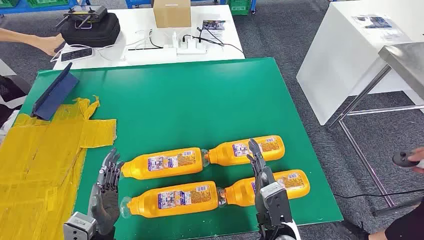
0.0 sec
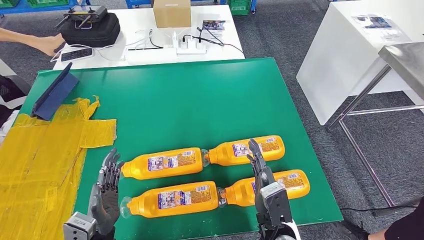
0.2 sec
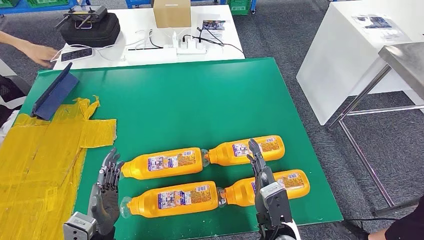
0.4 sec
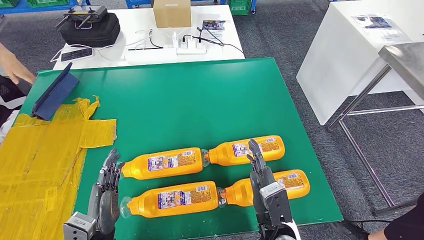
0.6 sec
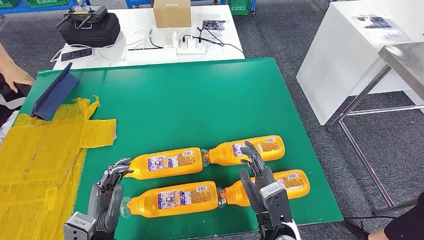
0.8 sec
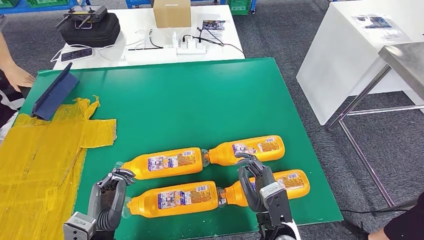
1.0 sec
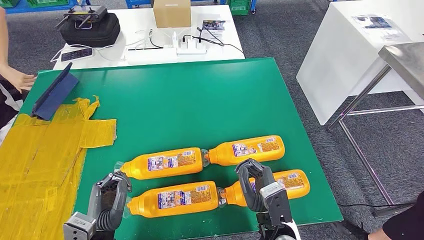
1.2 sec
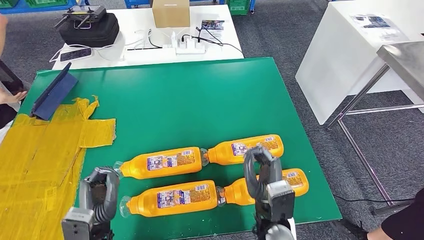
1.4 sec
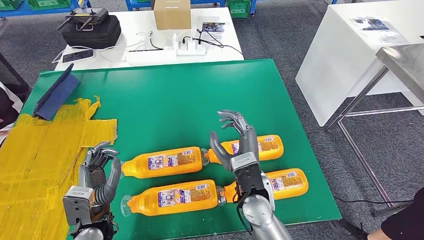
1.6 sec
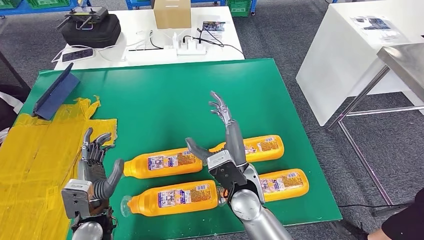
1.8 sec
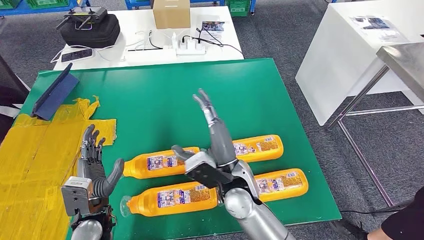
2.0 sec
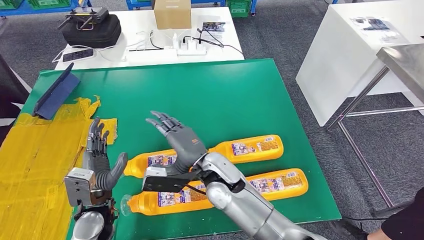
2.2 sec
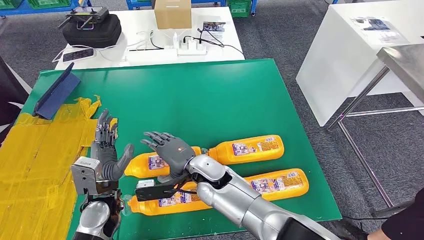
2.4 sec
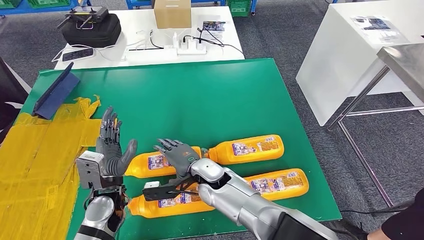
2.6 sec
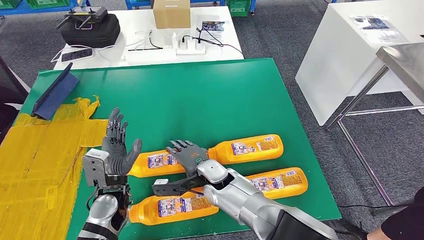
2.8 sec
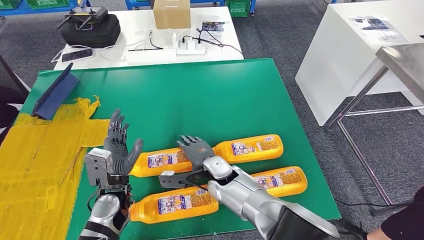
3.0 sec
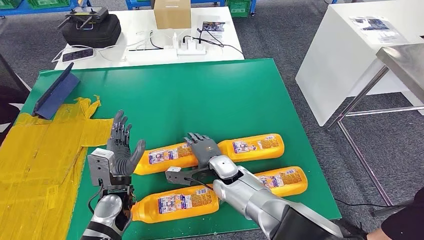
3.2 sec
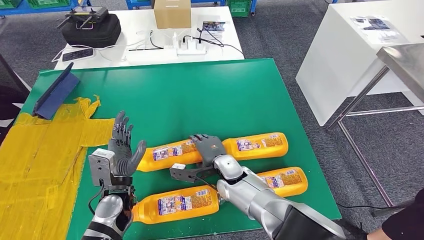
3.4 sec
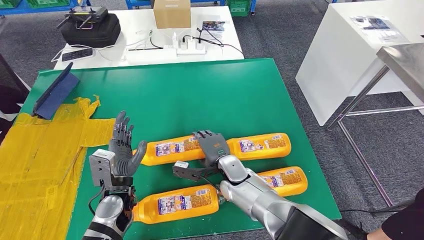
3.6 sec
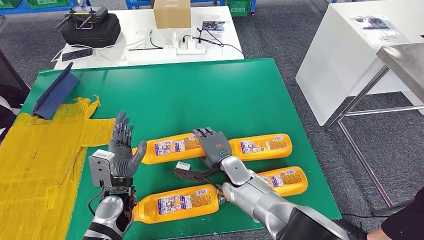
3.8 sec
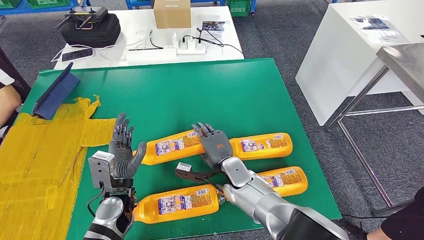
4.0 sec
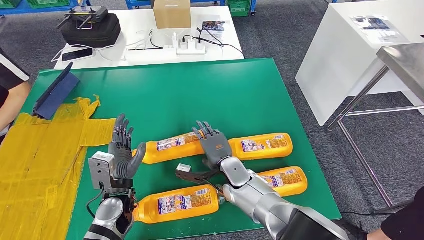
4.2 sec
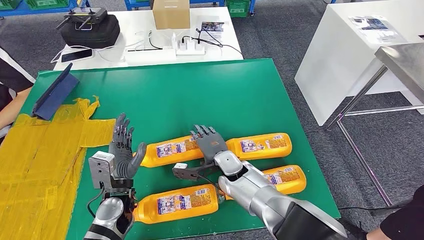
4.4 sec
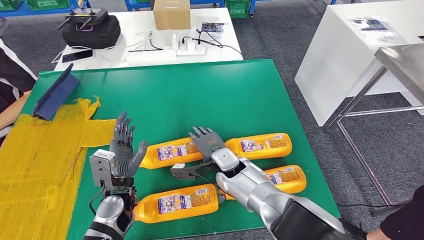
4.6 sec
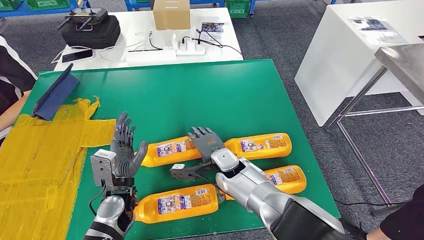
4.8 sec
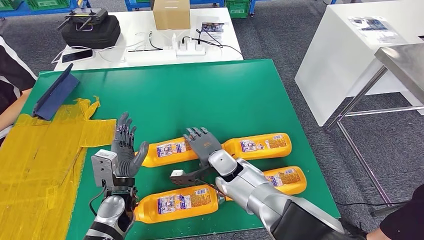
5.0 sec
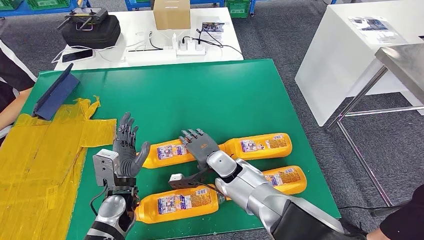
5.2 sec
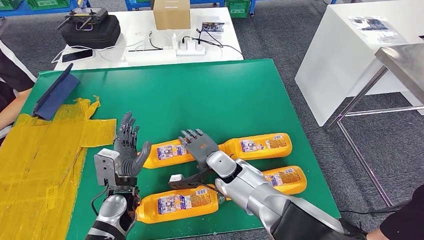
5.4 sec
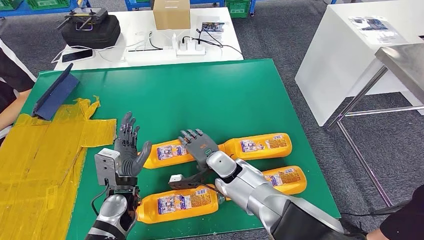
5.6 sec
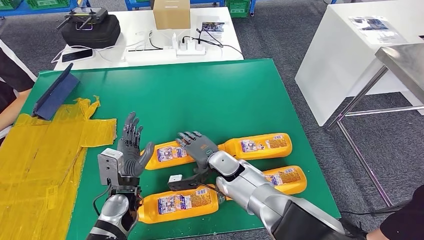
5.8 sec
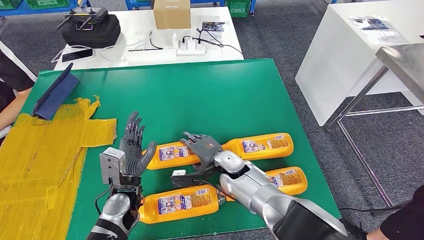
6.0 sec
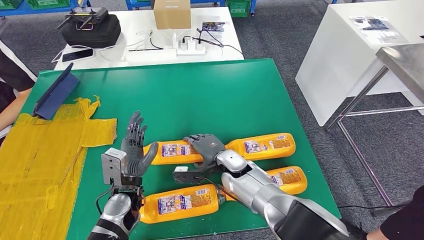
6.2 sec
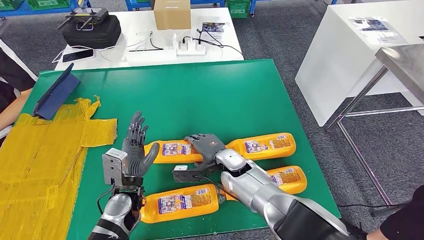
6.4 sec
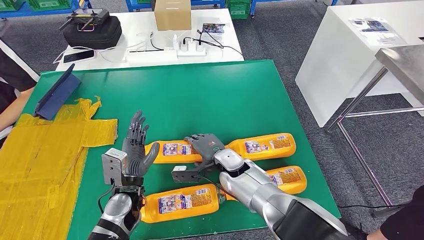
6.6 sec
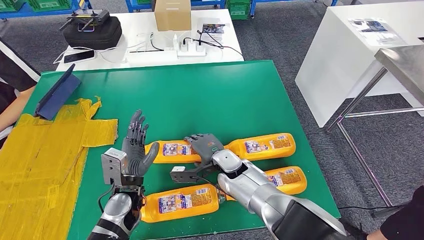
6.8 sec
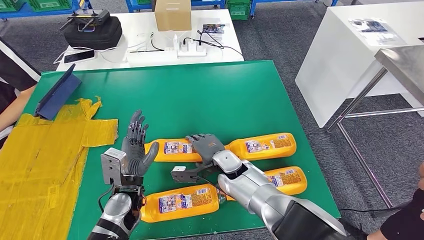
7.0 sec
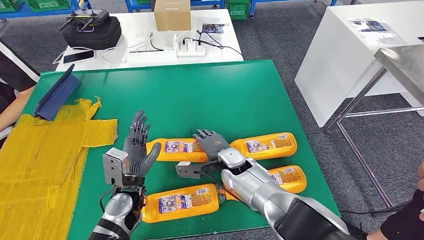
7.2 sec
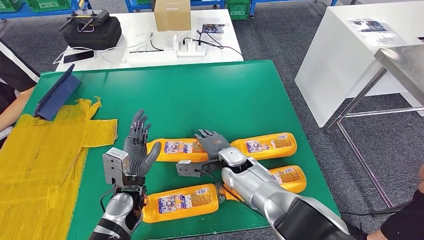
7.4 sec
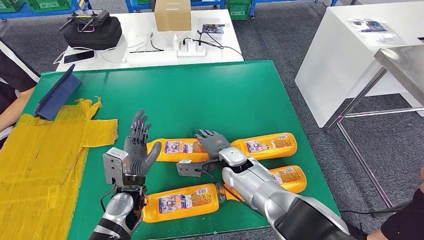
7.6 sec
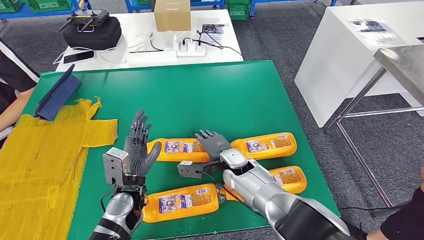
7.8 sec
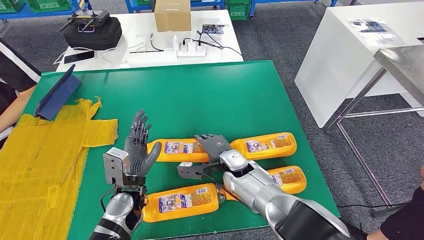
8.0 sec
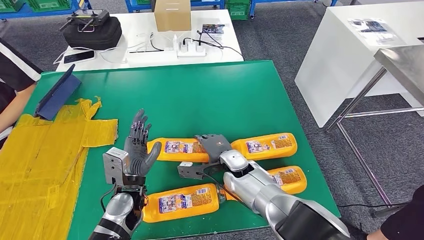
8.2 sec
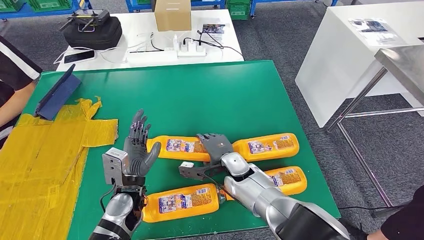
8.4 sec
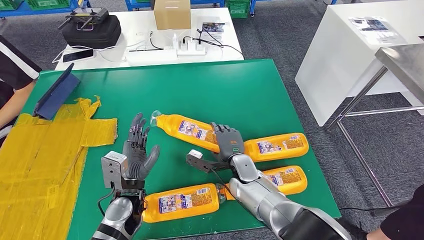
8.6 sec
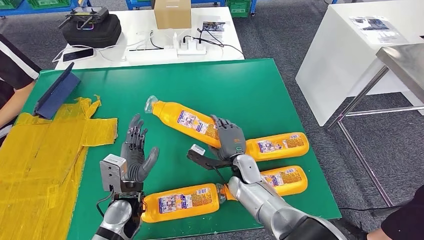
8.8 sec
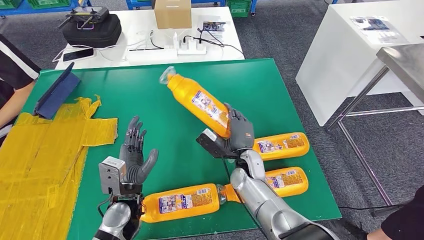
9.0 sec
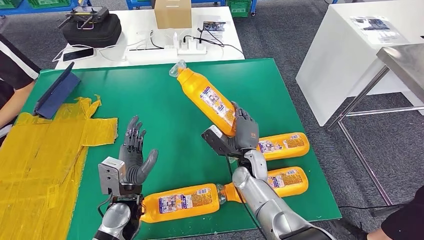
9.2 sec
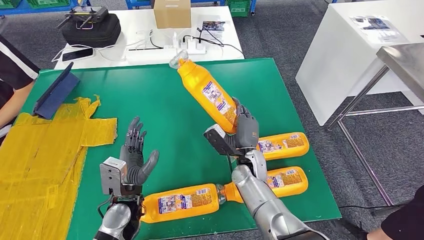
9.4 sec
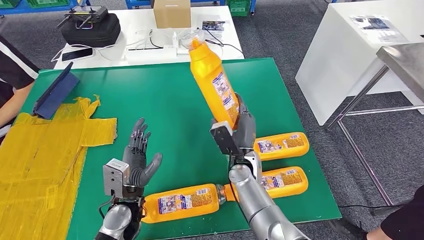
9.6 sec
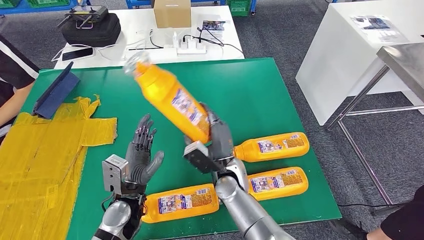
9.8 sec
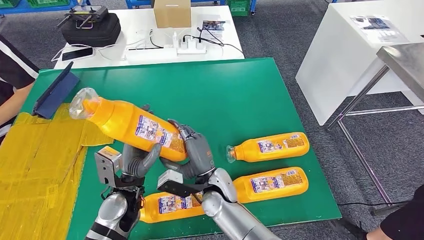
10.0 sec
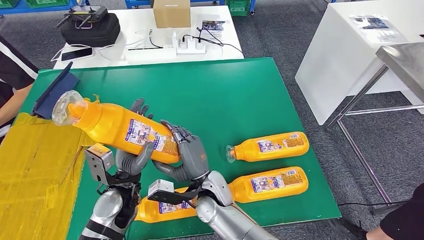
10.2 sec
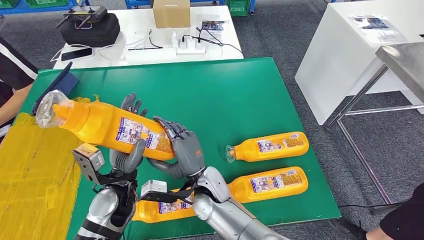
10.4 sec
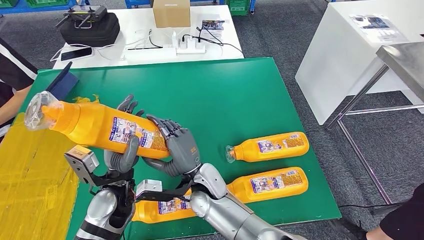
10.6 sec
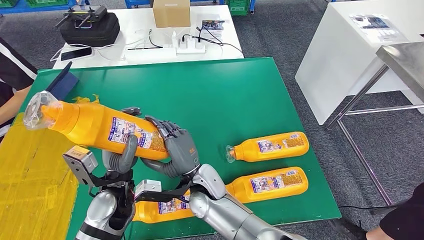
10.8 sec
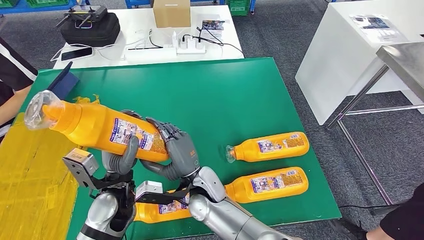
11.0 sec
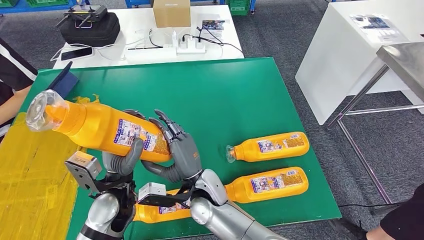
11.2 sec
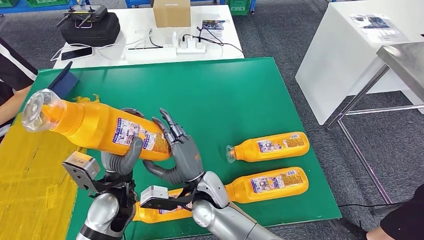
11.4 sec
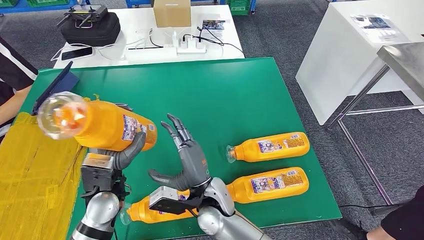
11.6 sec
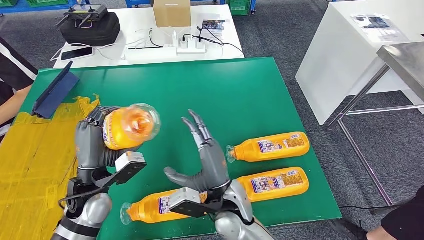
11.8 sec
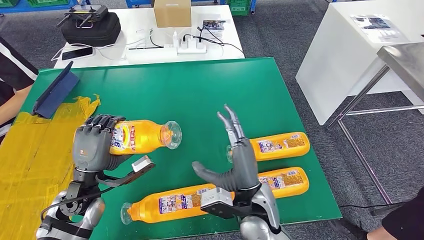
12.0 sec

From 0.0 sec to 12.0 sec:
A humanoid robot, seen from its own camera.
Step, from 0.0 sec to 10.2 sec: Take the fast-moving consumer goods bottle from the table.
From 1.6 sec to 3.0 sec: The left hand travels forward by approximately 5 cm. Meanwhile the right hand shifts about 10 cm forward and downward.
From 4.4 sec to 7.6 sec: There are only small adjustments of the hands.

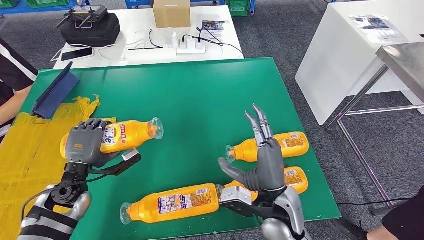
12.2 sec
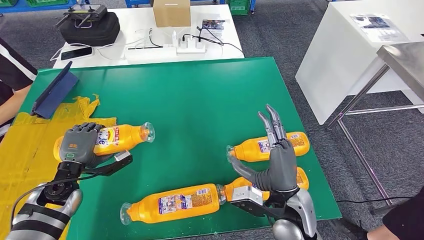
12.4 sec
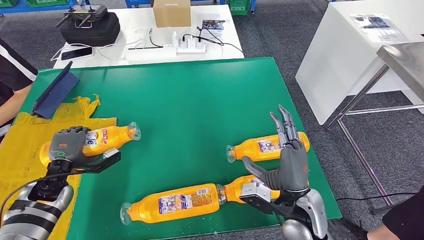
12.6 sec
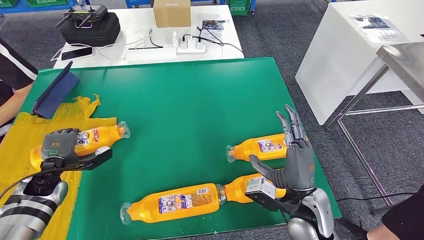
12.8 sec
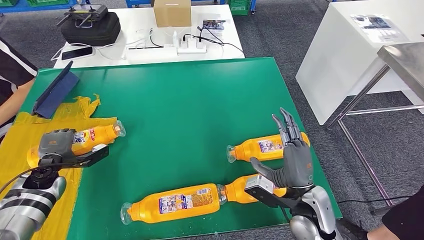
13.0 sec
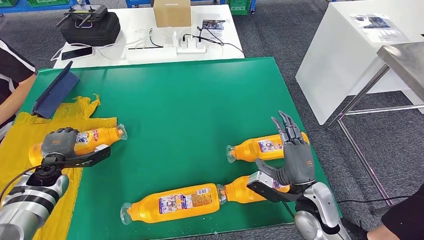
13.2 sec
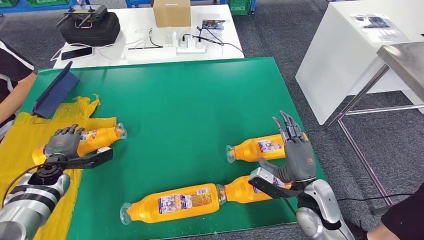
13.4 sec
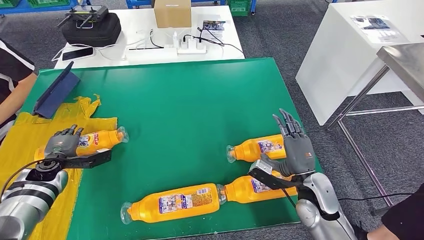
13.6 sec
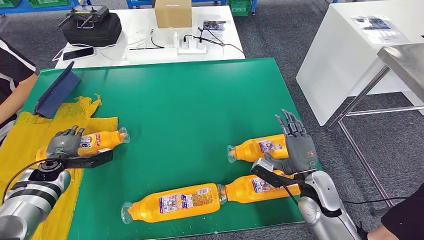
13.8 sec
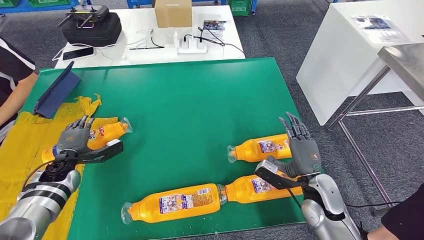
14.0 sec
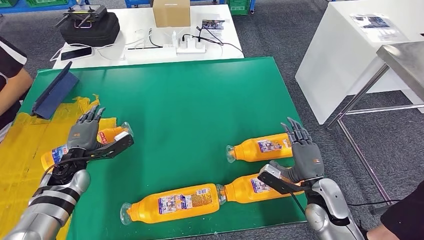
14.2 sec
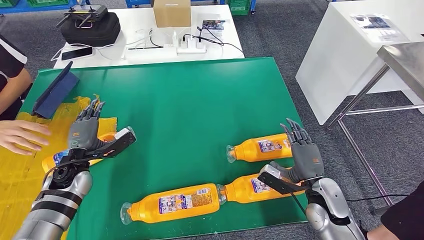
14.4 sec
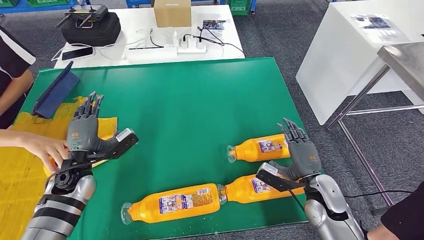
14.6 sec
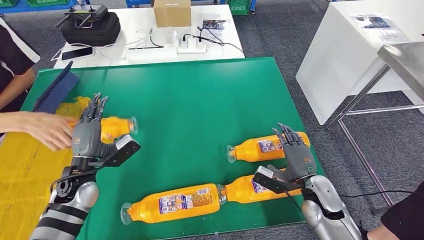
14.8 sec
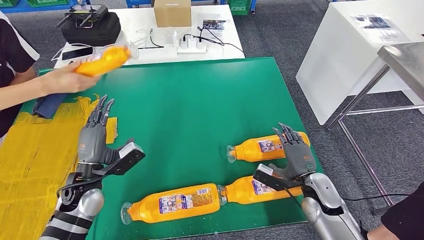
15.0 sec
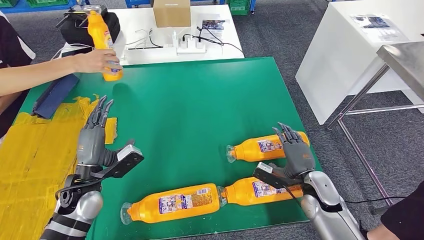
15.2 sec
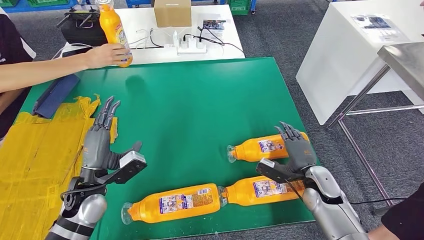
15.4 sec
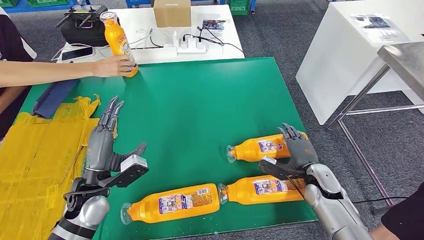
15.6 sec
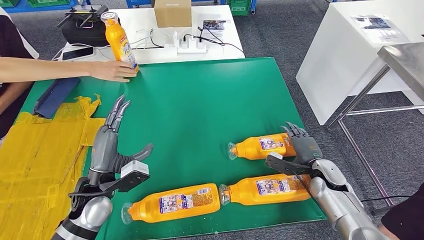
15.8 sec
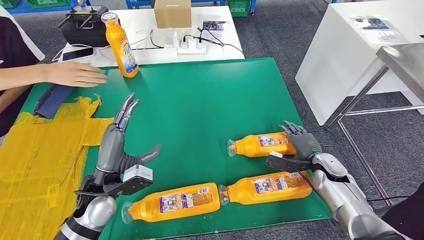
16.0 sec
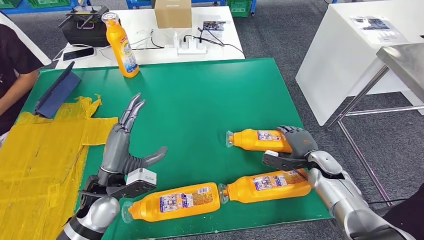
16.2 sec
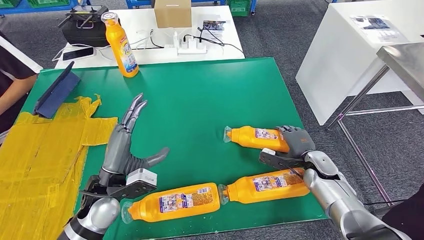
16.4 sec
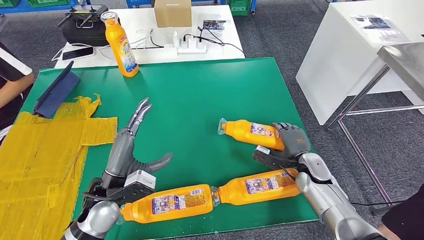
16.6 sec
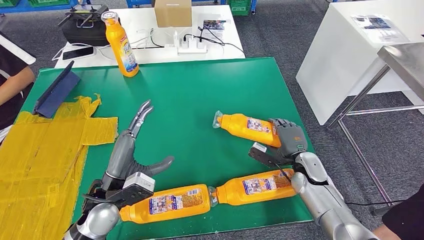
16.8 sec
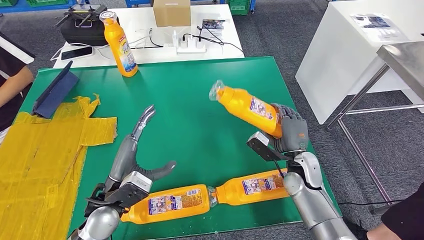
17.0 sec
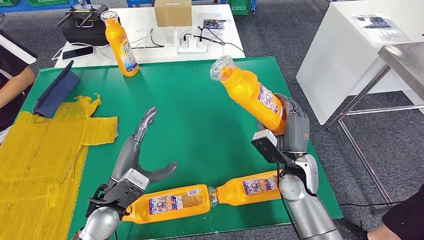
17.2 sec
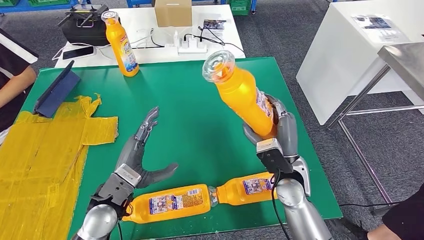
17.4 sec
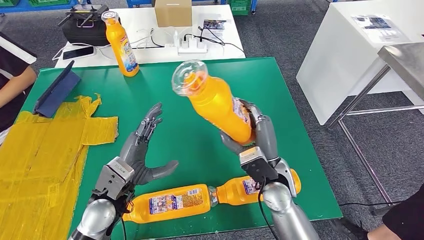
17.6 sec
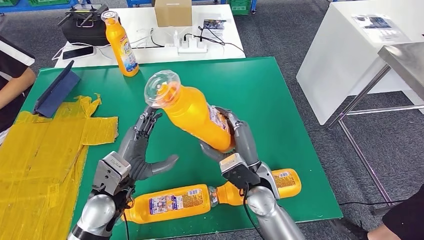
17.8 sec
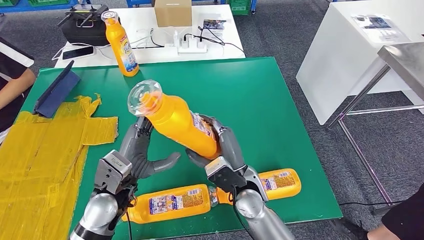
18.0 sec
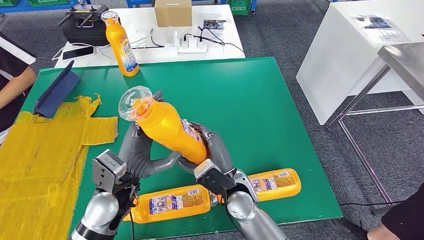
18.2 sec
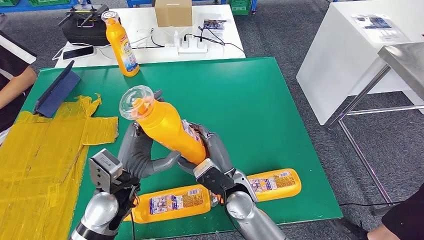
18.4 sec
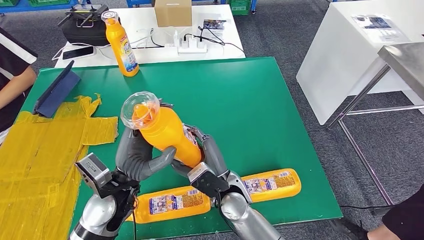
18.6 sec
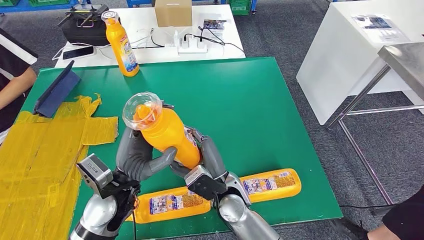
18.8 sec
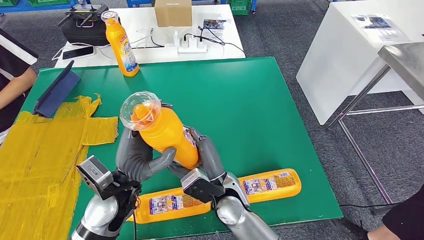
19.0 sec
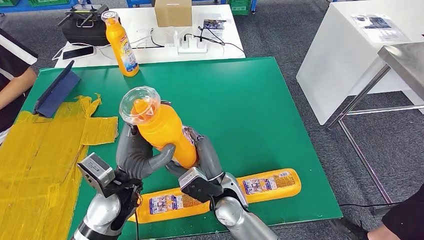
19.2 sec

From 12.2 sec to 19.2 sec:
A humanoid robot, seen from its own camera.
Step, from 13.8 sec to 18.4 sec: Pick up the fast-moving consumer goods bottle from the table.
From 17.8 sec to 19.2 sec: The right hand is displaced to the left by approximately 10 cm.
